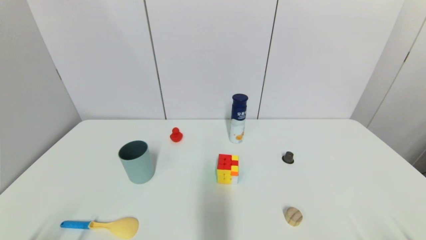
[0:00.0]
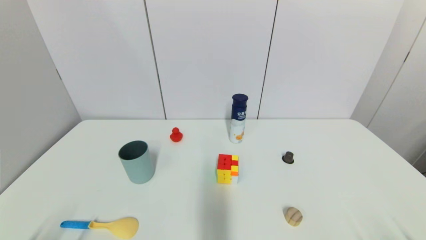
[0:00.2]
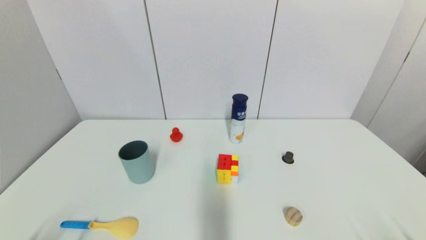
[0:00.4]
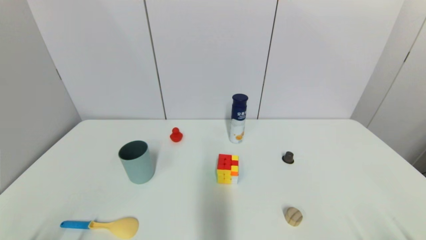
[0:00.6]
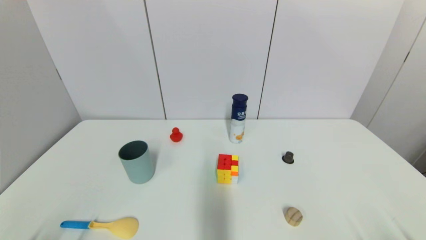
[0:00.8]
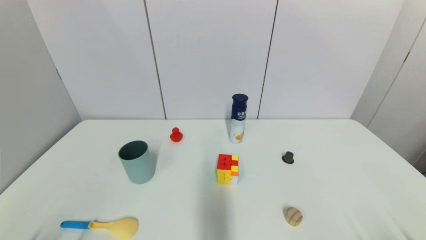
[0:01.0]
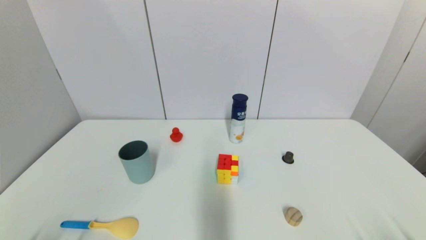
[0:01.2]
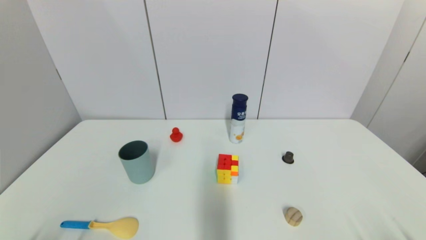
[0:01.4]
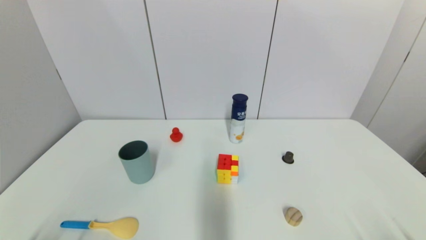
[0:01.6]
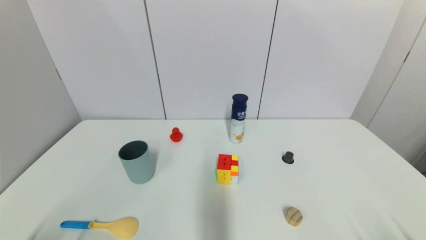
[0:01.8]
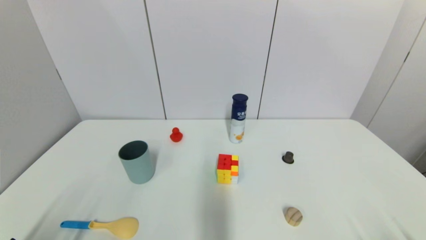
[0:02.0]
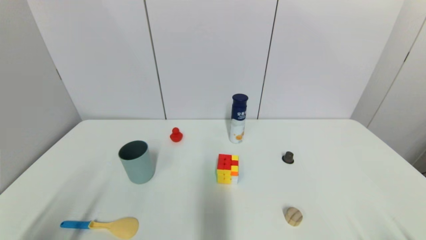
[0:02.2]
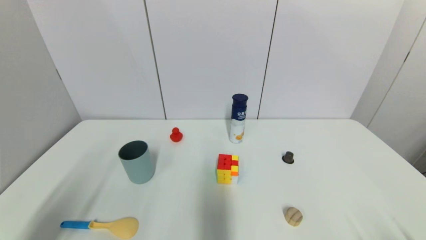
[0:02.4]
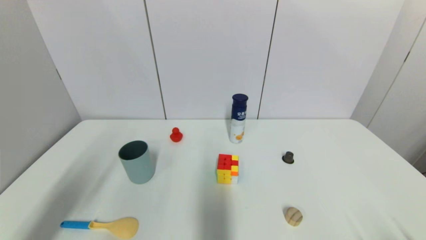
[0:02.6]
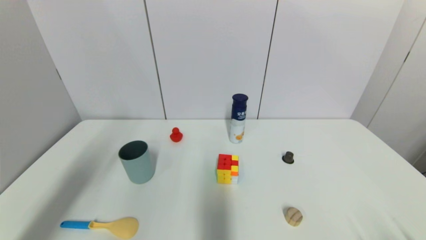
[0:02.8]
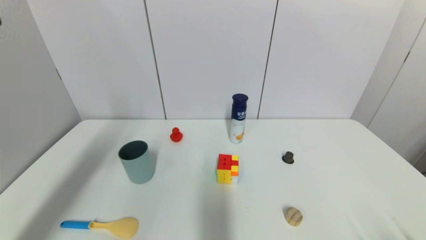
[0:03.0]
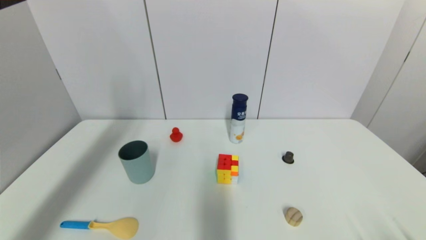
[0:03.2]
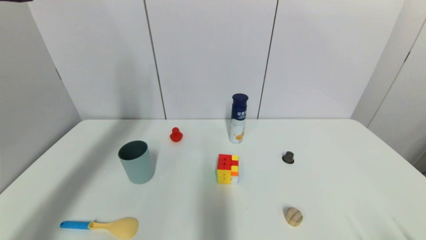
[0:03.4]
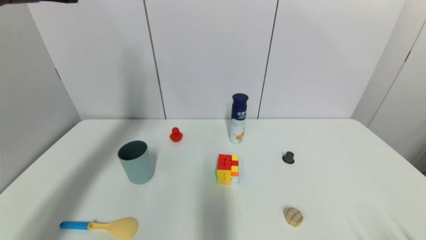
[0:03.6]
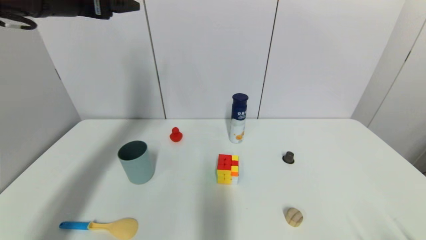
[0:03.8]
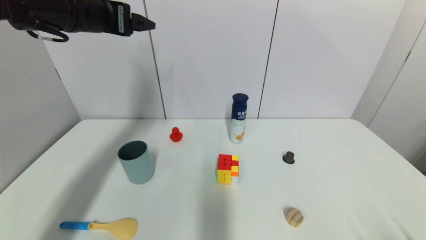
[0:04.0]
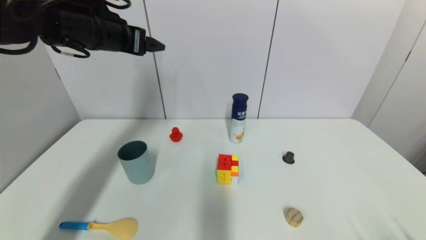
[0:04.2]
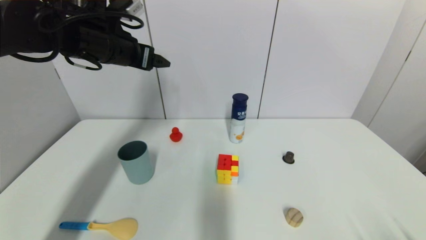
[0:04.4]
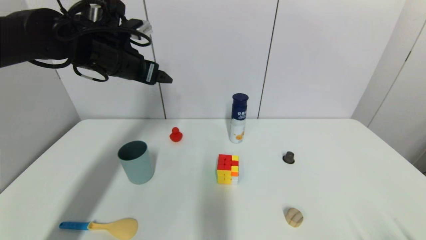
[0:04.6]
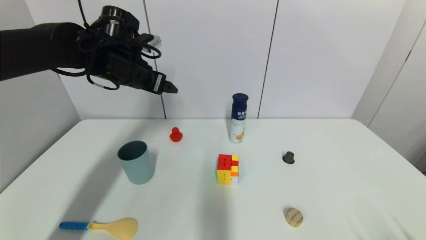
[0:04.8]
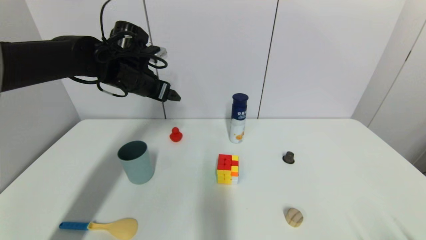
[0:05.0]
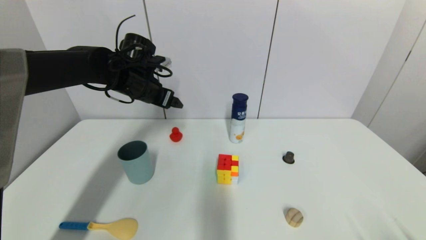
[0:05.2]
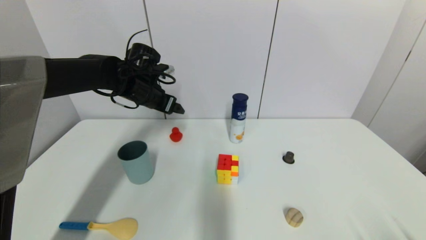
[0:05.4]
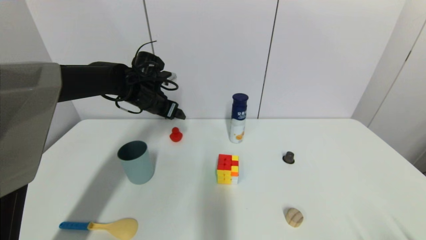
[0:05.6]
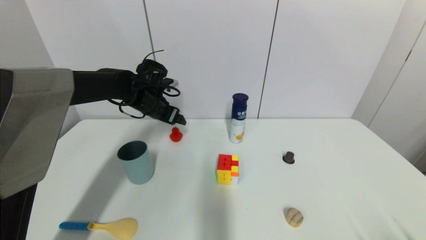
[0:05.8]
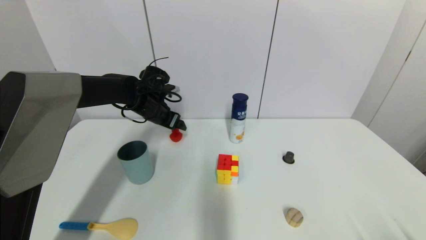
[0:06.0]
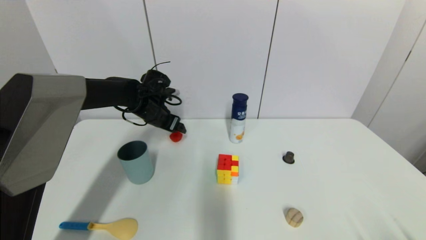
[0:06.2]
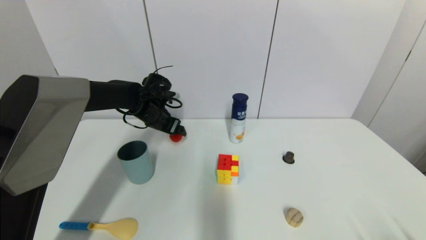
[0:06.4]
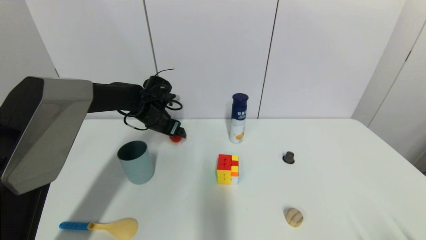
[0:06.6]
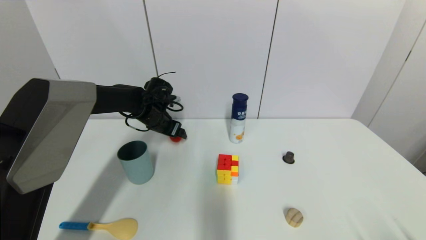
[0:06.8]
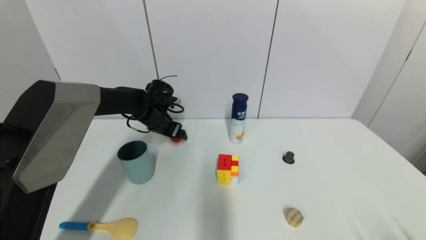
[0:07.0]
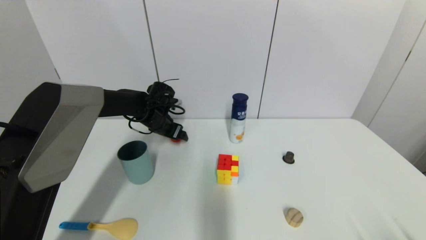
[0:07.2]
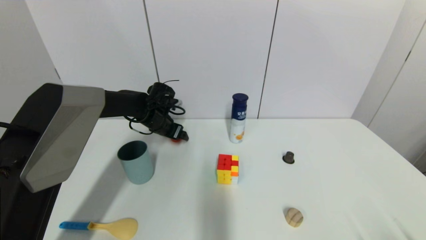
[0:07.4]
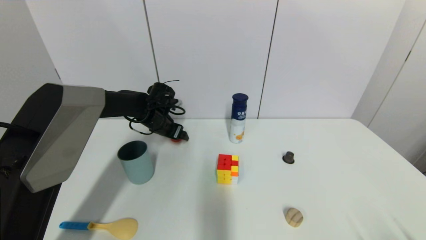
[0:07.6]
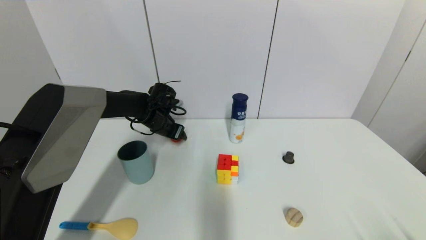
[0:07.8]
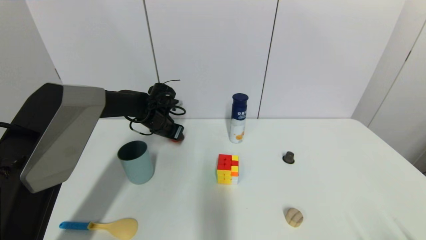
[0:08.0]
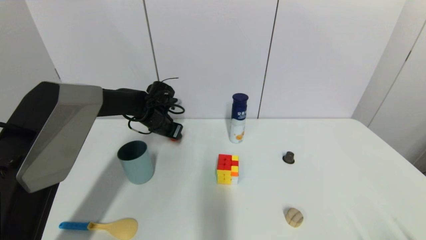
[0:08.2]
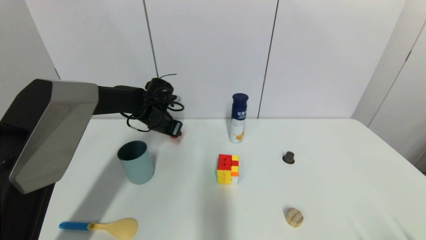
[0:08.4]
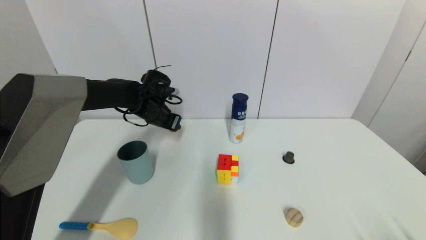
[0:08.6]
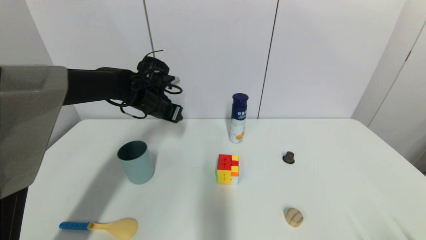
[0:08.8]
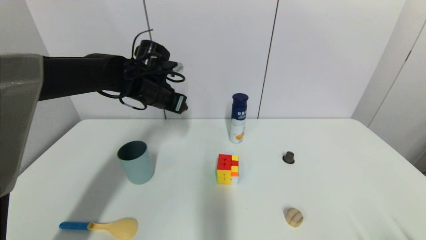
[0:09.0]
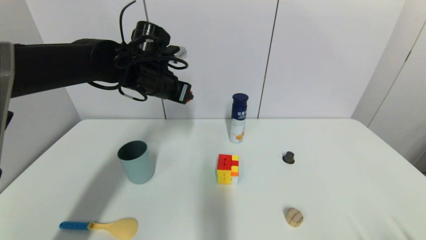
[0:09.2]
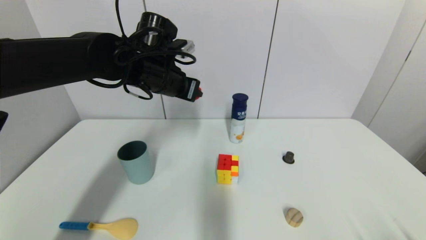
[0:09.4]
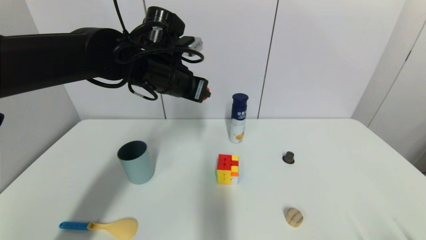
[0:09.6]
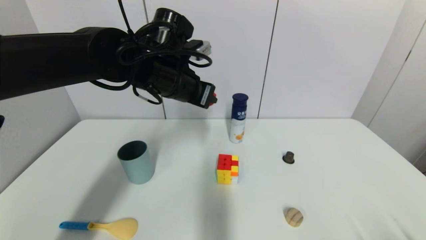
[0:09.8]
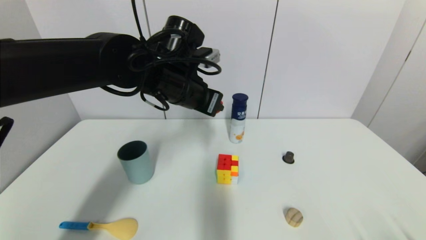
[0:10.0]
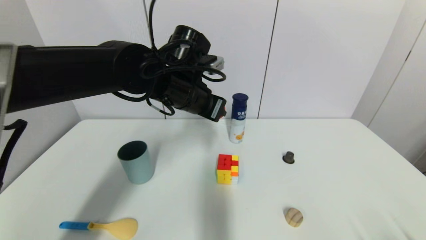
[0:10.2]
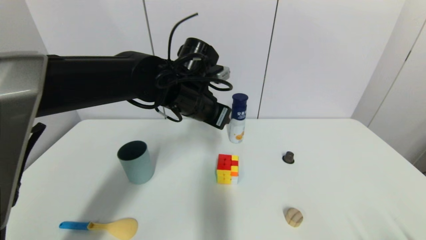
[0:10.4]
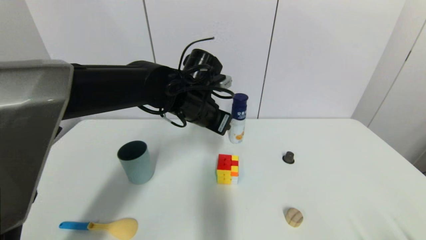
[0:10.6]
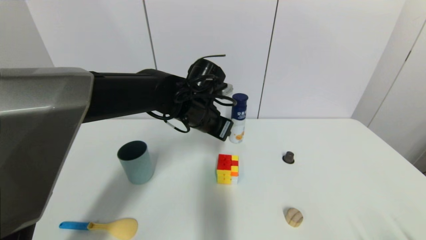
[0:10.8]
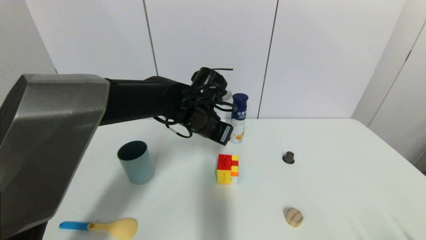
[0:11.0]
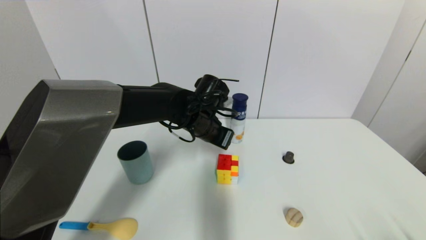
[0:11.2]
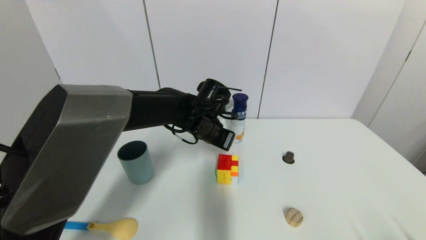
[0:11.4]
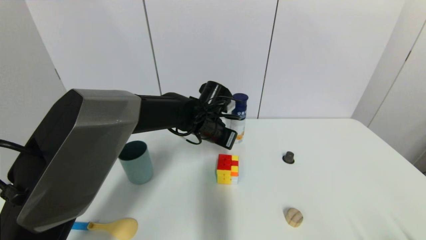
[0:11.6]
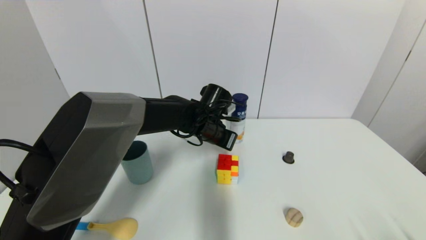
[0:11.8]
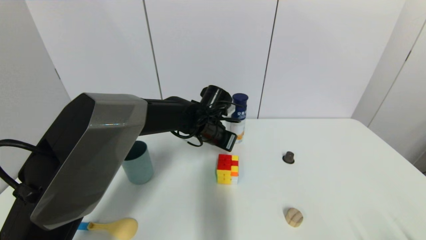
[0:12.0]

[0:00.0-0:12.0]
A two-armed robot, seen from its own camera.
Step, 0:03.0 to 0:08.6: Grasp the red duck with left gripper.
0:00.0 to 0:01.6: Both grippers stay about where they are.
0:01.6 to 0:03.0: The left gripper heads upward and forward, covering about 30 cm.
0:03.0 to 0:04.4: The left gripper goes approximately 25 cm forward and to the right.
0:04.4 to 0:06.0: The left gripper goes some 20 cm downward and forward.
0:06.0 to 0:07.6: The left gripper travels downward by approximately 5 cm.
0:07.6 to 0:09.0: The left gripper shifts some 10 cm upward and backward, and closes up.
0:09.0 to 0:10.4: The left gripper moves to the right and backward, some 10 cm.
0:10.4 to 0:12.0: The left gripper is displaced downward by roughly 10 cm.

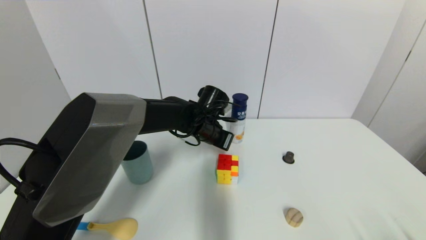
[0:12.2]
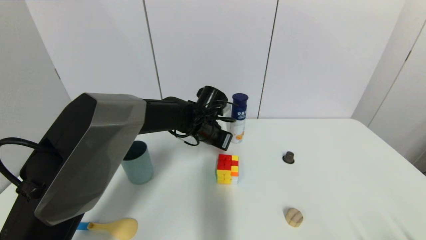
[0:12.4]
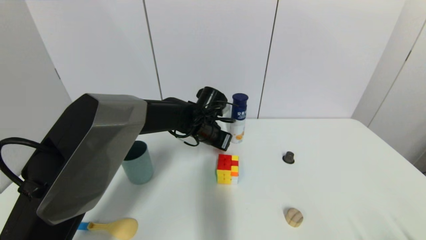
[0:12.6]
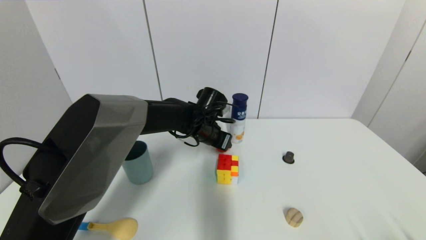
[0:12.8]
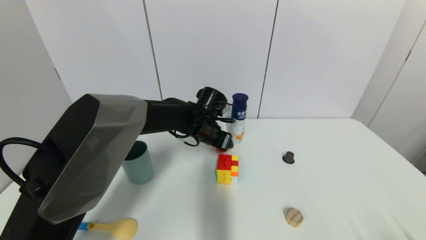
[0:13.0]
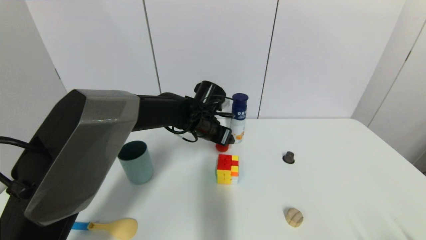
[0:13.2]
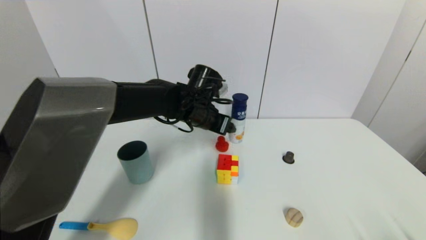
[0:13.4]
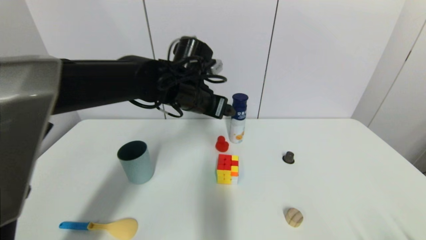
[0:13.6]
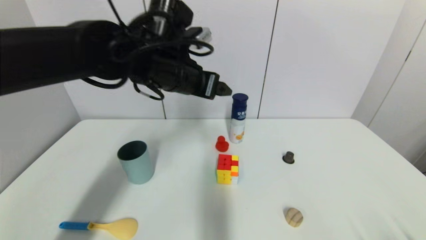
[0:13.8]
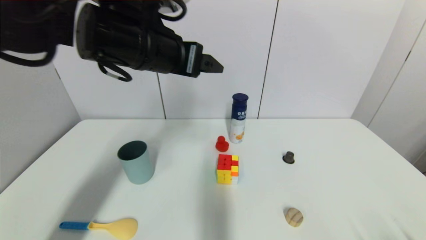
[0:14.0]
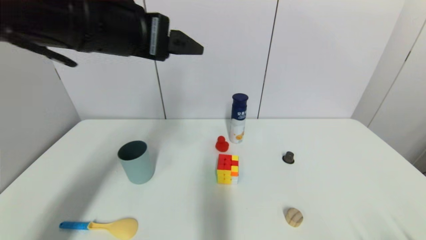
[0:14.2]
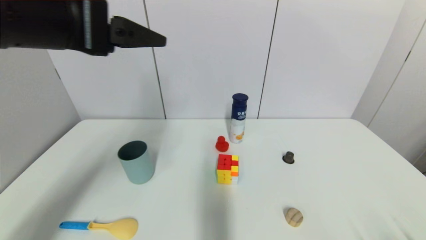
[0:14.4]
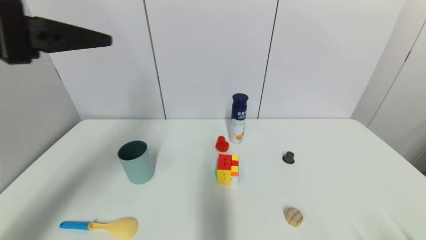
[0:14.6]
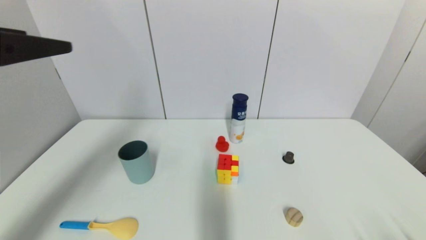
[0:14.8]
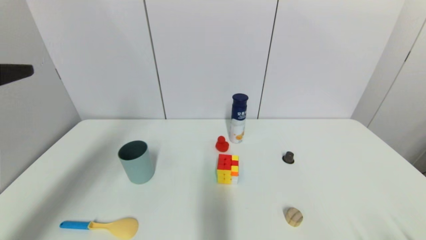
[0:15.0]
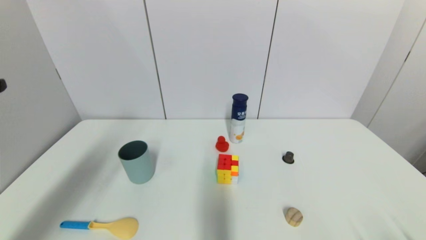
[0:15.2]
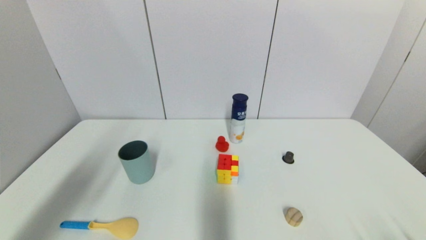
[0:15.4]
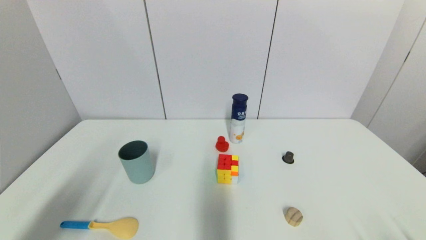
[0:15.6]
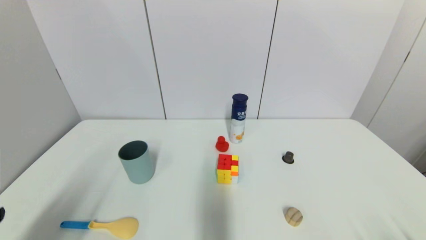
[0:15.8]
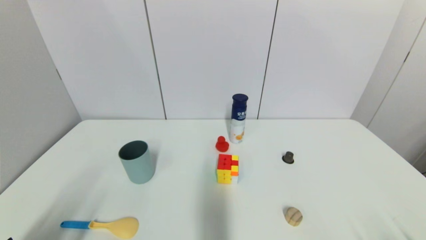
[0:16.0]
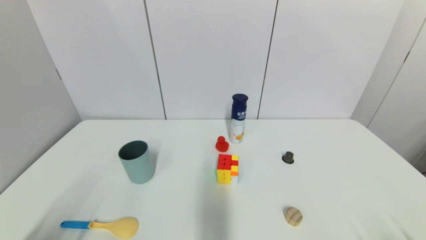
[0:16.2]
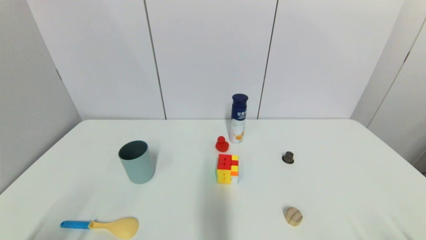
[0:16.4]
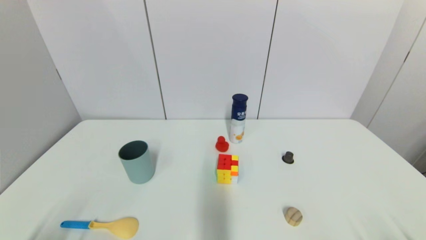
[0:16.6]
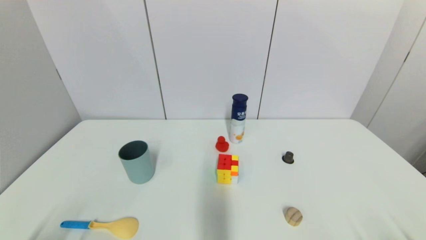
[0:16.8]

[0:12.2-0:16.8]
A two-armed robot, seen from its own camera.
0:12.2 to 0:13.8: The left gripper travels upward and backward by approximately 15 cm, and opens up.
0:13.8 to 0:15.2: The left gripper moves backward and to the left, approximately 35 cm.
0:15.2 to 0:16.8: The left gripper moves downward, some 25 cm.
